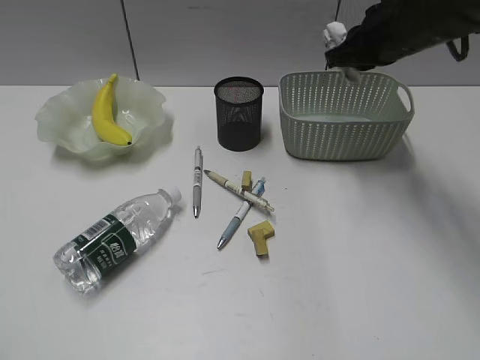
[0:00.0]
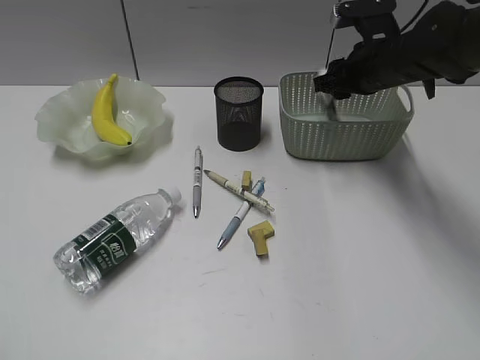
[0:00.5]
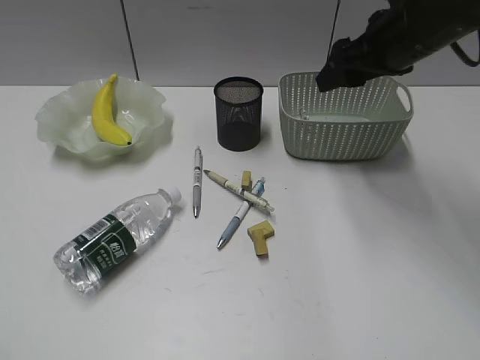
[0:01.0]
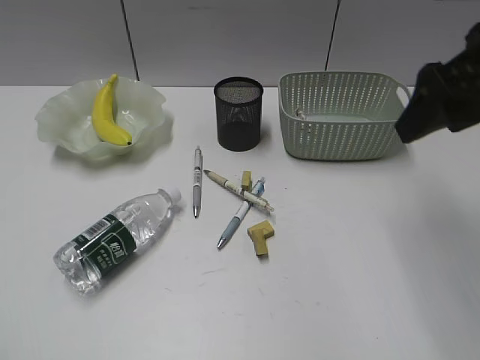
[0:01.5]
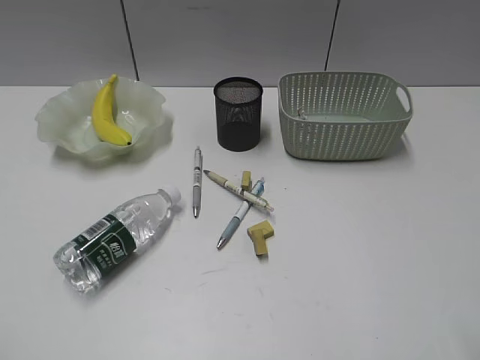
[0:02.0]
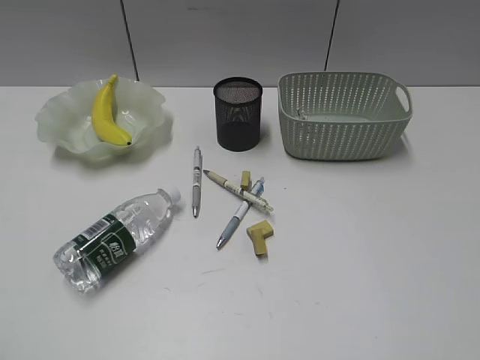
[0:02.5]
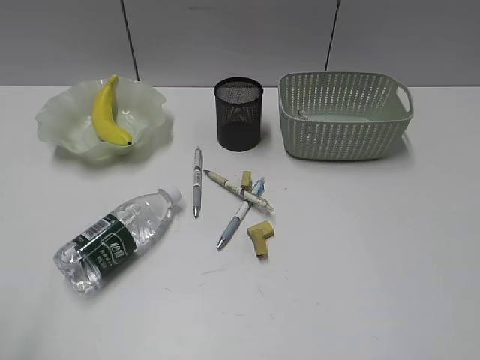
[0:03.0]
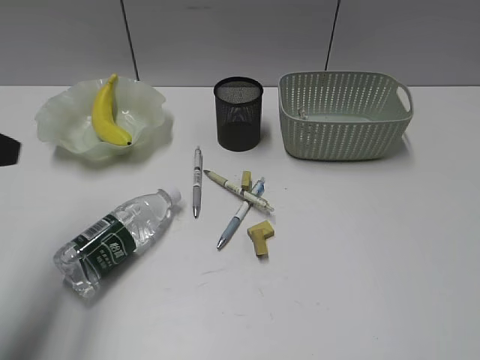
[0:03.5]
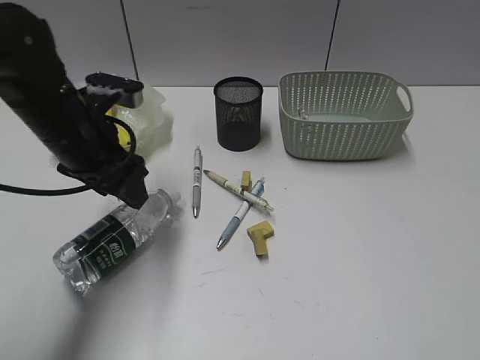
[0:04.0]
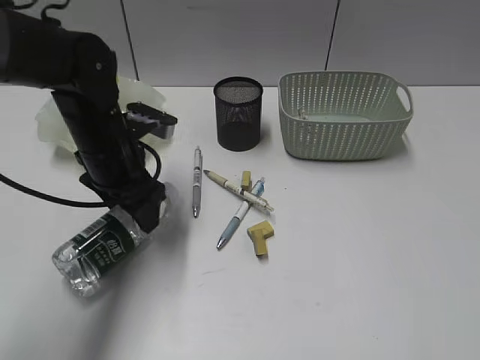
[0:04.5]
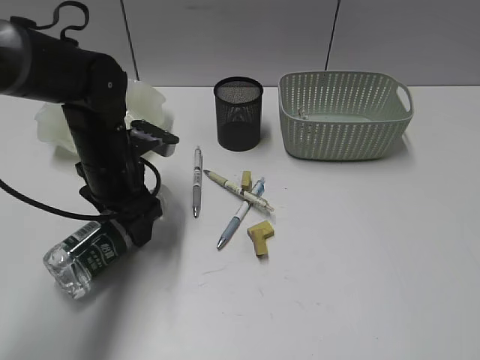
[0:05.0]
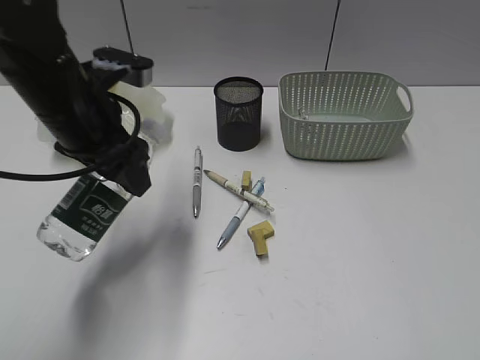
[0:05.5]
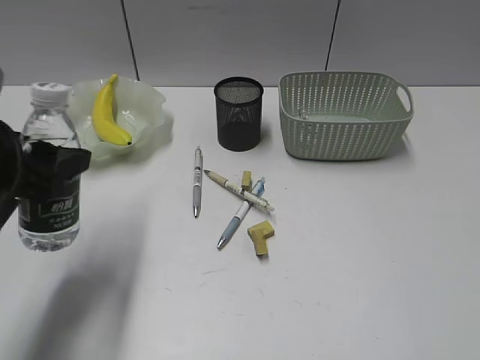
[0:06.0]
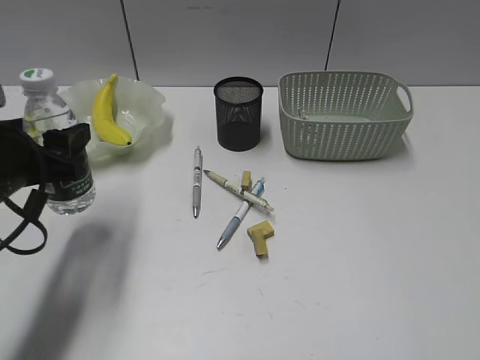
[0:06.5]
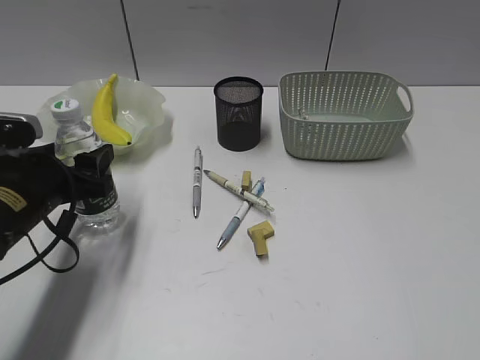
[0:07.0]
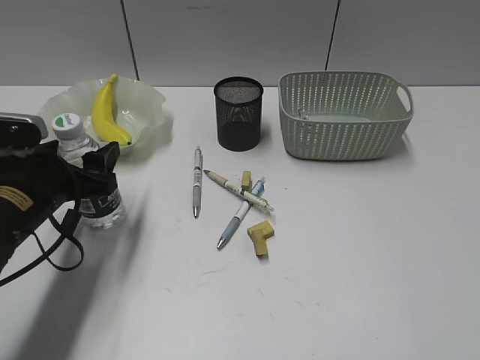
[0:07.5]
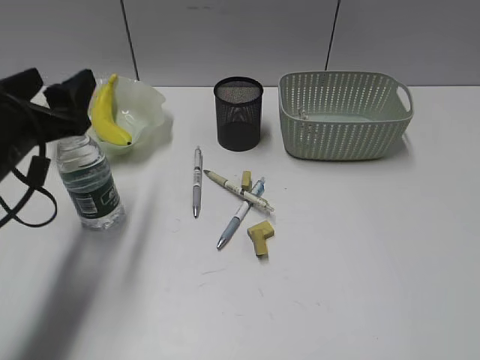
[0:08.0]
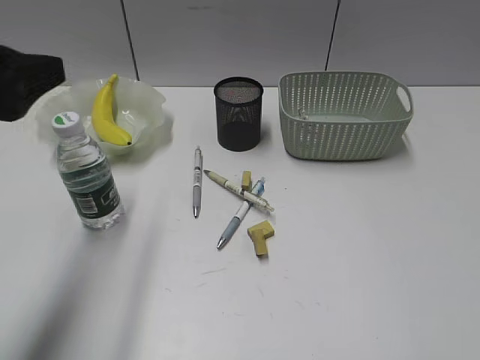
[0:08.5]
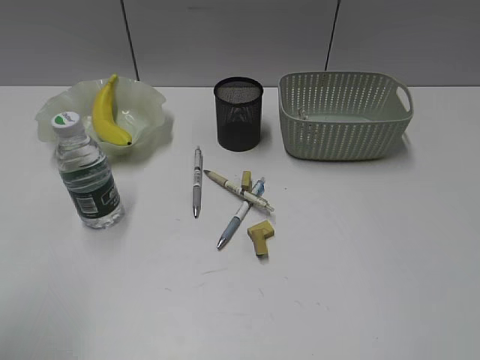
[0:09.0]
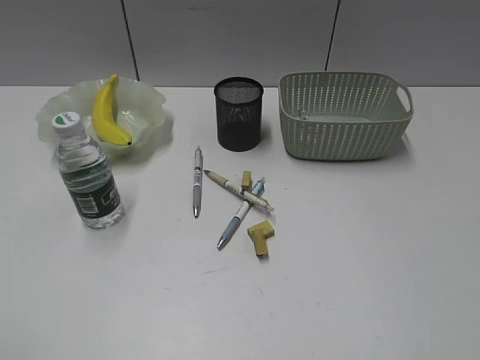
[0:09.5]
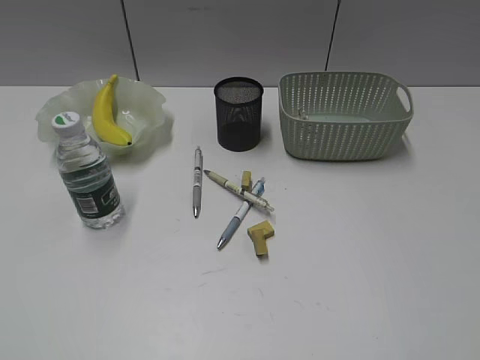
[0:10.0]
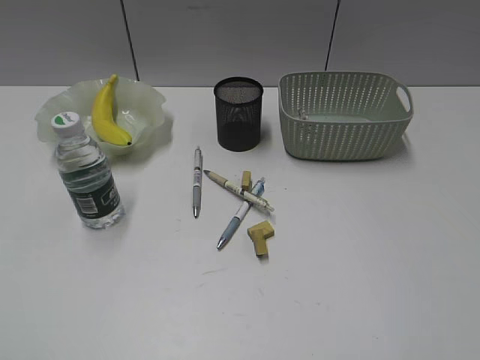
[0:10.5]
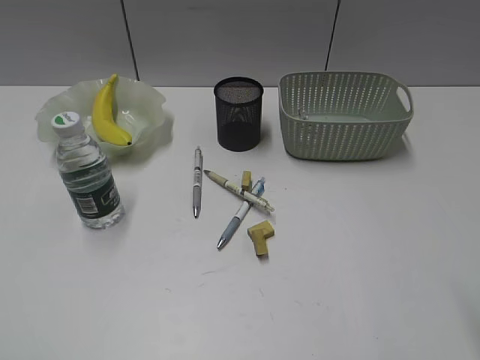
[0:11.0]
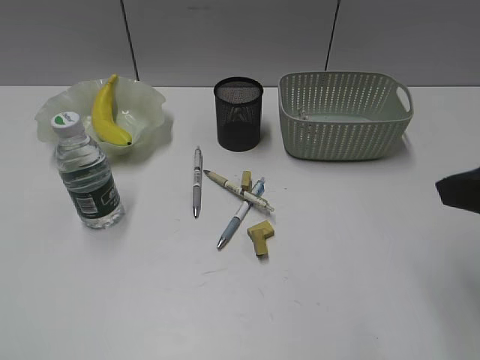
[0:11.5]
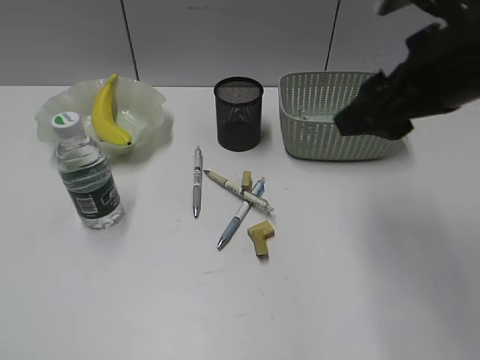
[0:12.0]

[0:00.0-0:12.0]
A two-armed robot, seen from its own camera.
Step, 0:01.0 to 0:04.5: Grasp the bottle with left gripper.
Step, 0:05.0 to 0:07.5: Stand the bottle with left gripper.
0:00.0 to 0:02.0: The right gripper shifts some 30 cm backward, and opens.
0:02.0 to 0:04.0: The left gripper shifts roughly 35 cm forward and to the right. The right gripper heads backward, covering about 10 cm.
0:04.0 to 0:06.0: The left gripper moves backward and to the left, roughly 10 cm.
0:06.0 to 0:08.0: The left gripper travels downward and back again, roughly 10 cm each way.
0:08.0 to 0:10.0: The left gripper moves backward, about 30 cm.
0:10.0 to 0:12.0: The right gripper moves forward and to the left, roughly 30 cm.

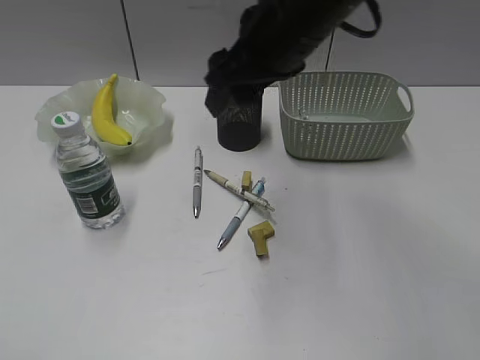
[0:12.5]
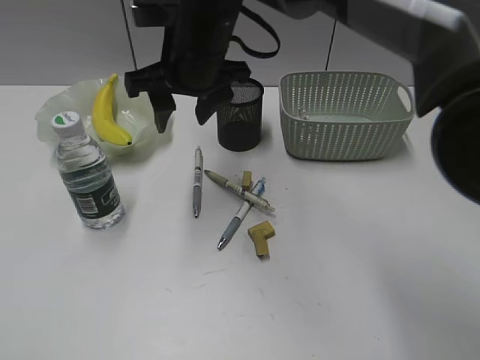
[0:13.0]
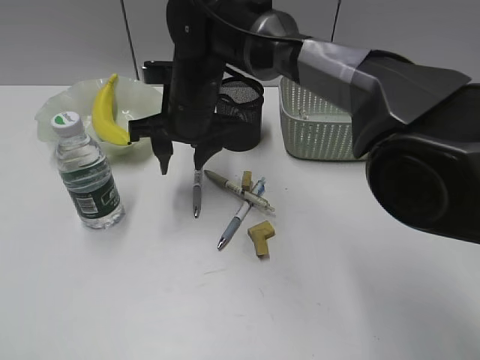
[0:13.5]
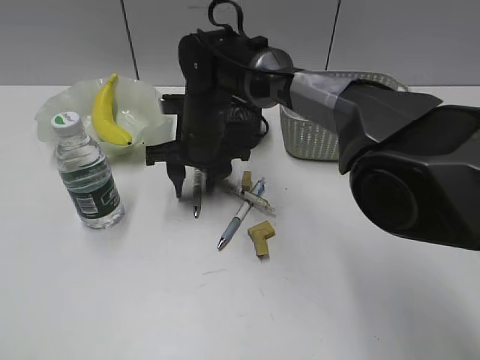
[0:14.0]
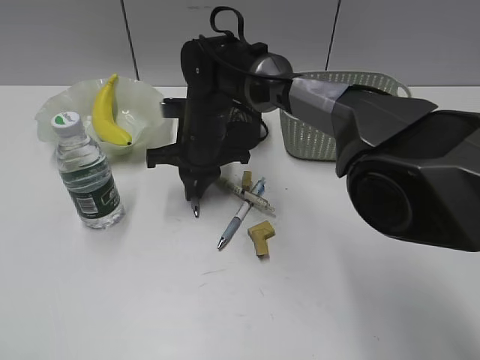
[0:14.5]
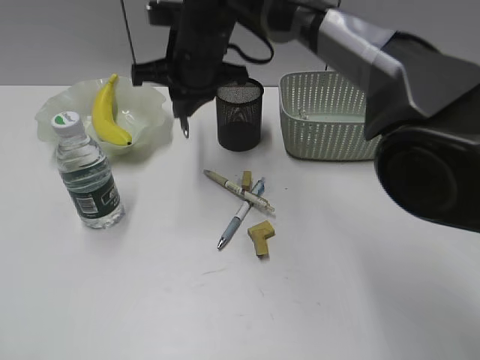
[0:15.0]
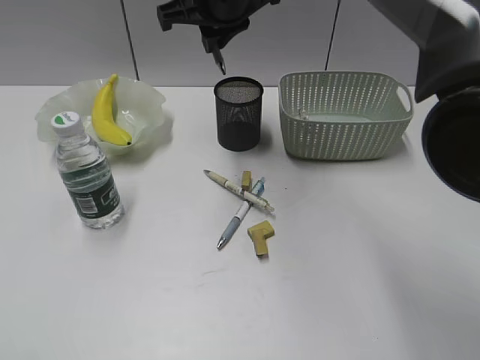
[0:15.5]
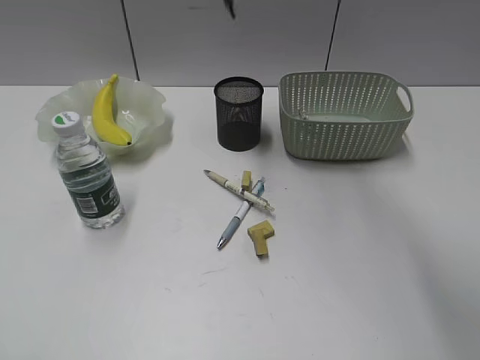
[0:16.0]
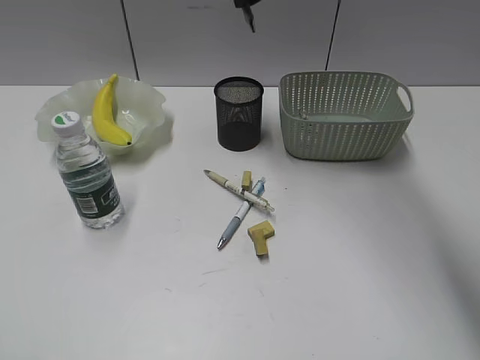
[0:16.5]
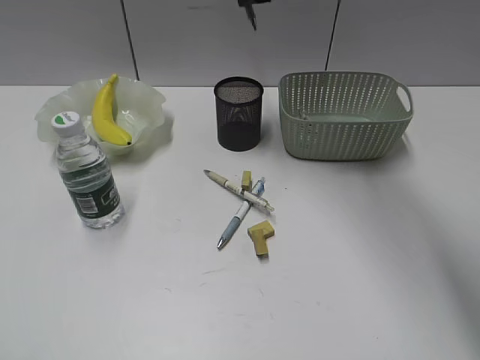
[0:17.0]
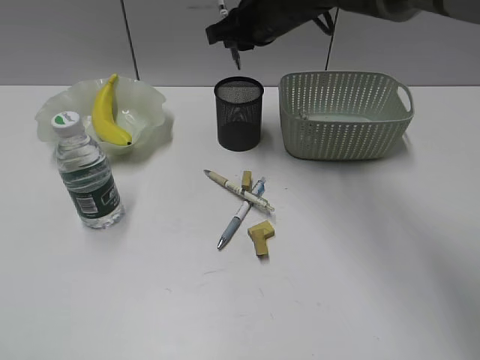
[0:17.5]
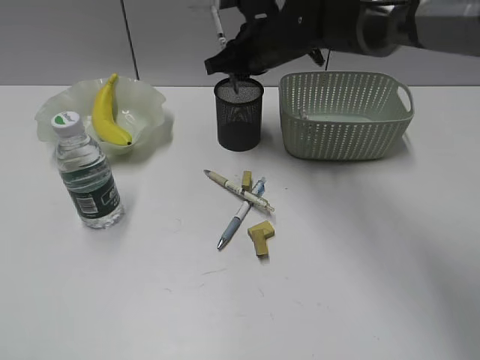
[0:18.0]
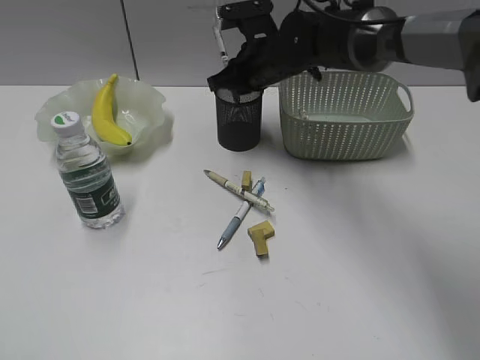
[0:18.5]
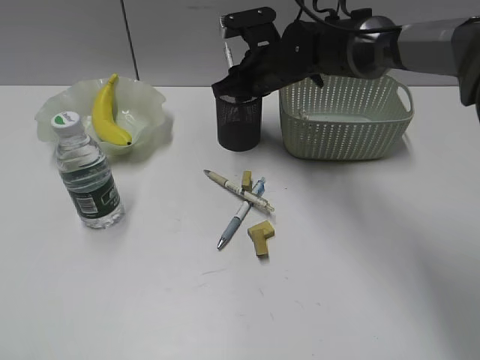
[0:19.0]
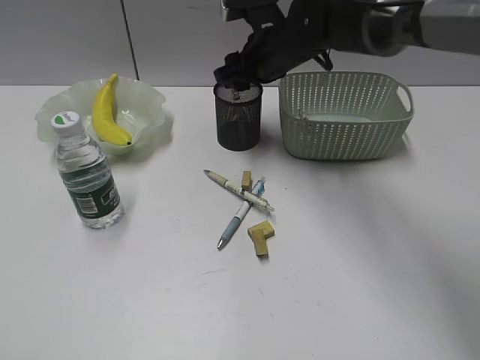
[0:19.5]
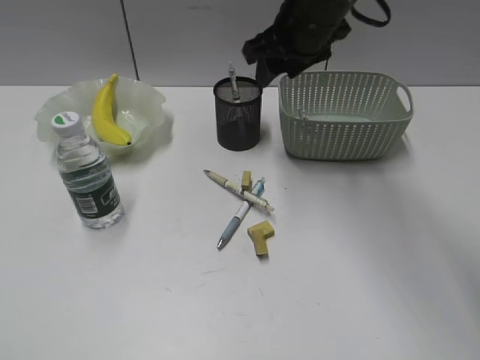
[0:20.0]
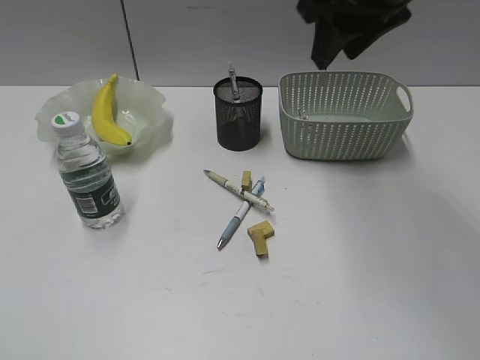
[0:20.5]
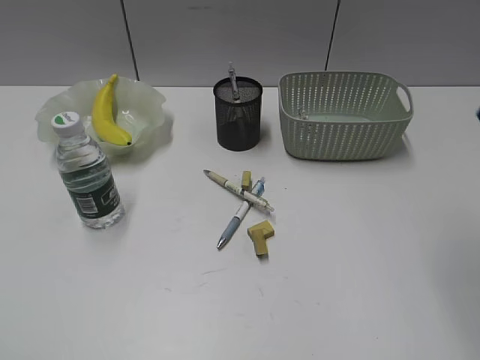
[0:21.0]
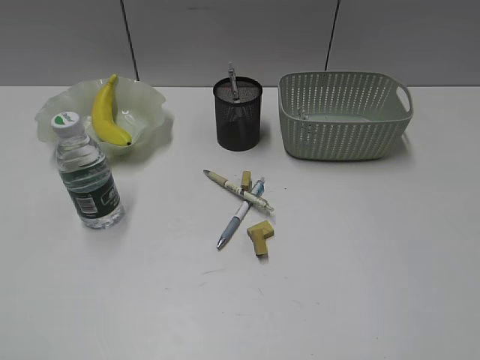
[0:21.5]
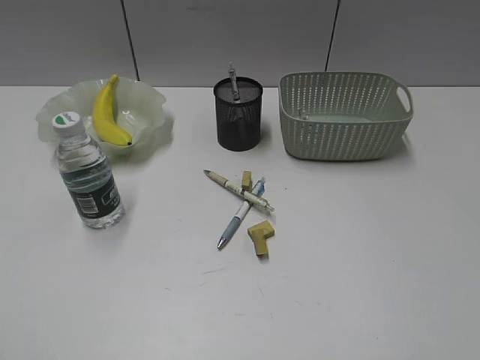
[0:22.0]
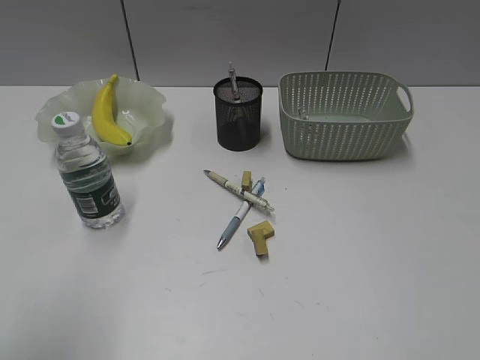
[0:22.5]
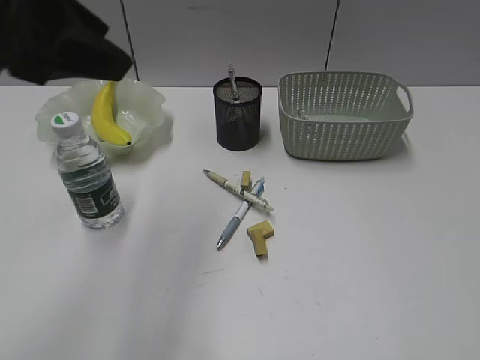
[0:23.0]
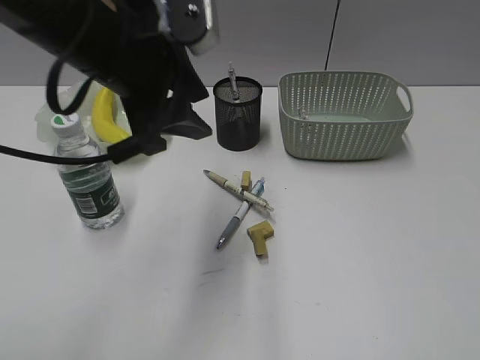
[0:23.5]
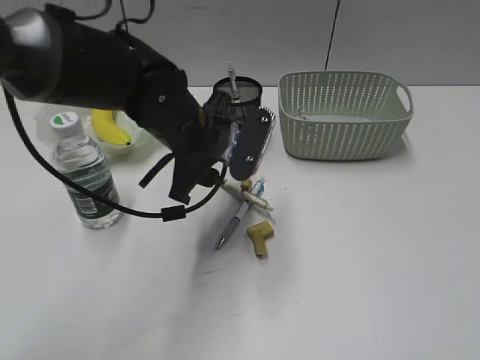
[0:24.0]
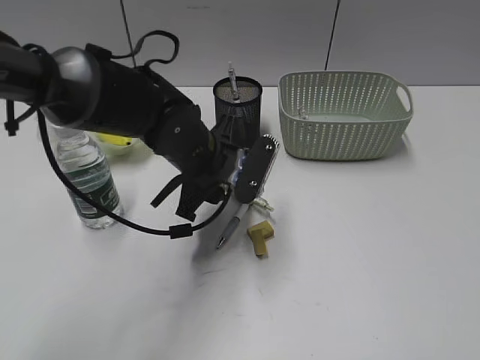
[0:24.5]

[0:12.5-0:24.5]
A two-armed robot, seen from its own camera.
Step, 0:12.5 to 0:14.5: Grasp the gray pen with right gripper.
Step, 0:15.0 to 0:19.0: Place the gray pen in pen holder with right gripper.
0:12.5 to 0:14.5: The right gripper goes some 20 cm downward, to the left and forward, and closes up.
0:14.5 to 0:16.5: The right gripper travels upward and to the right by roughly 25 cm.
0:16.5 to 0:18.5: The right gripper is displaced downward by roughly 15 cm.
0:18.5 to 0:20.5: The right gripper goes some 25 cm upward, backward and to the right, and opens up.
0:20.5 to 0:22.5: The right gripper heads backward and to the right, covering about 40 cm. Meanwhile the left gripper moves forward and to the right, about 10 cm.
0:22.5 to 0:24.5: The left gripper heads forward, to the right and downward, covering about 40 cm.

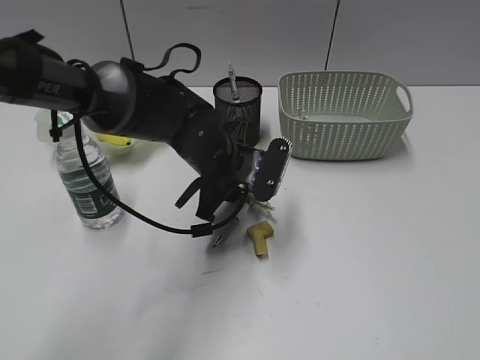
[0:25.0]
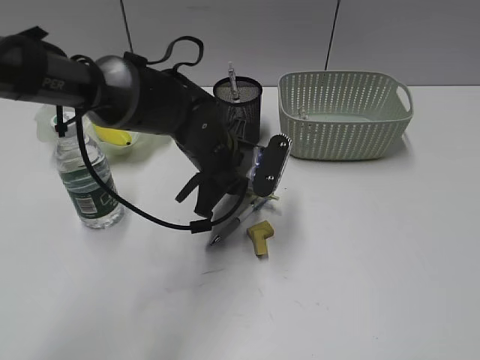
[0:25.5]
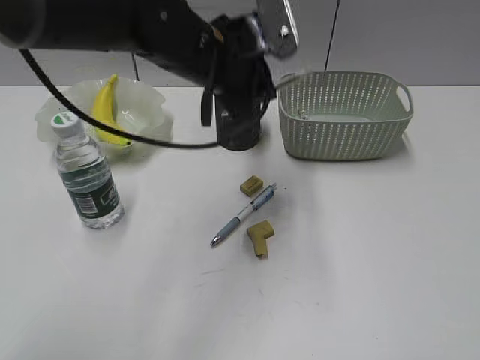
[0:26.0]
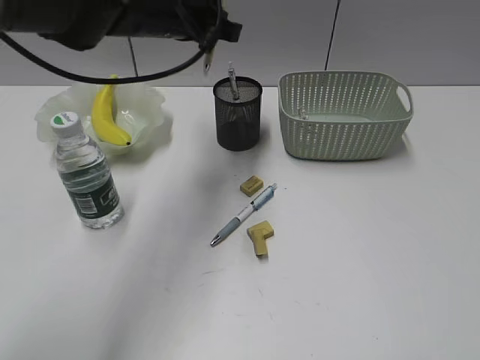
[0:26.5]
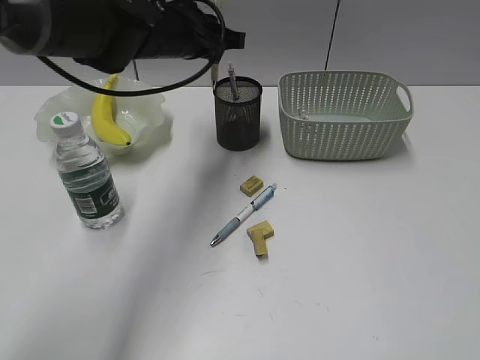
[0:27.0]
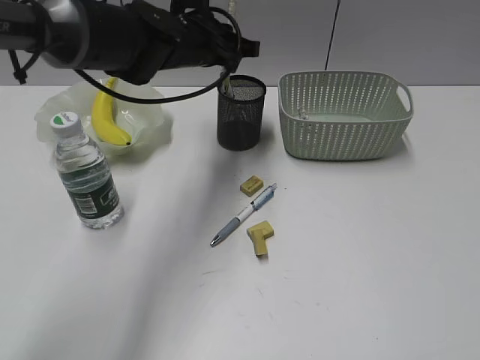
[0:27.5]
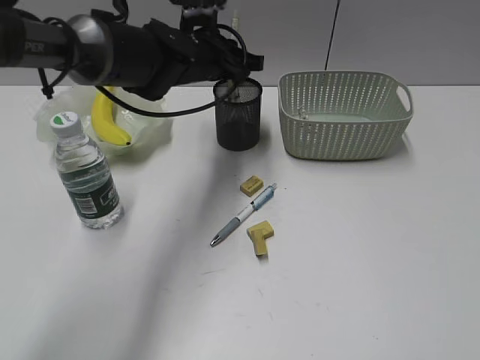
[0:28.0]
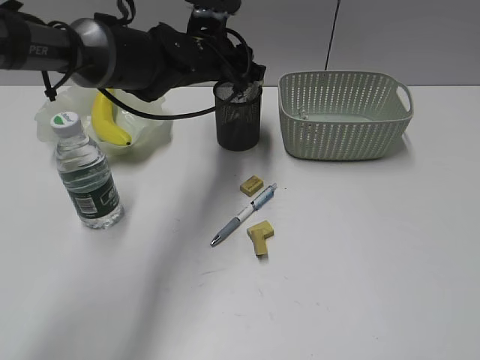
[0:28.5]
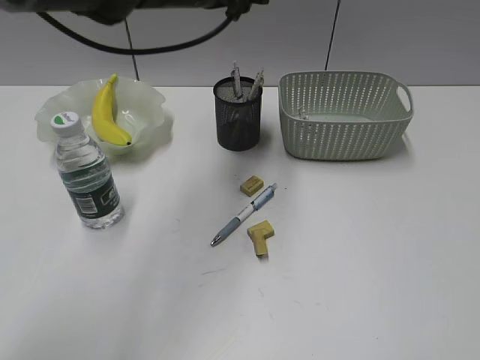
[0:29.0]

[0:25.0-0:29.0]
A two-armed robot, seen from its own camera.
Step, 0:25.5 to 0:28.5: Place the yellow pen in pen holder with left gripper.
0:25.0 to 0:27.0: The left gripper shifts roughly 15 cm upward and forward, and closes its fingers.
0:27.0 to 0:29.0: The left gripper goes about 5 cm upward, and opens up.
